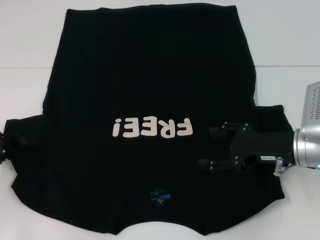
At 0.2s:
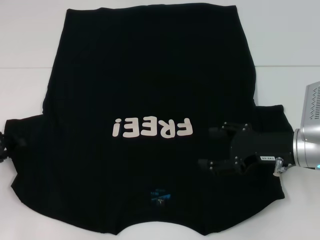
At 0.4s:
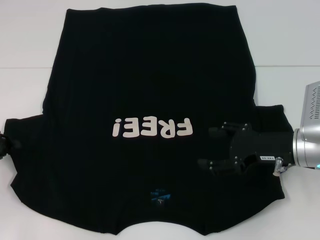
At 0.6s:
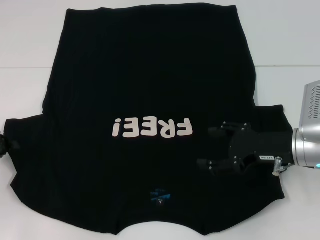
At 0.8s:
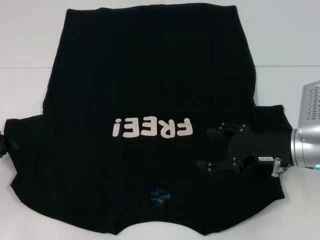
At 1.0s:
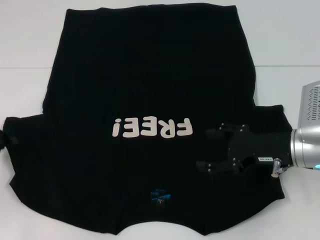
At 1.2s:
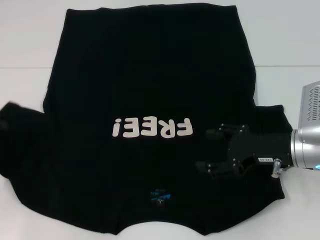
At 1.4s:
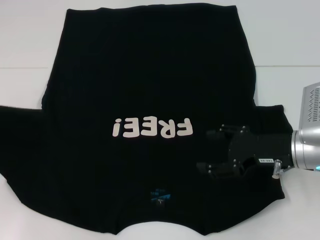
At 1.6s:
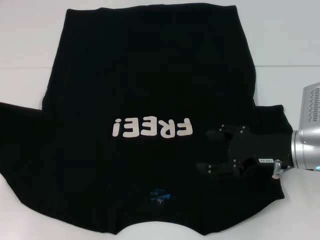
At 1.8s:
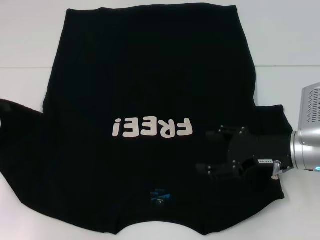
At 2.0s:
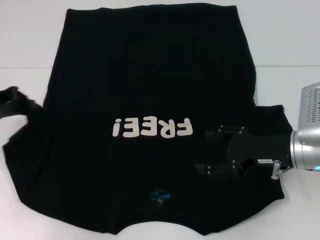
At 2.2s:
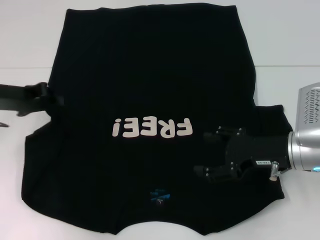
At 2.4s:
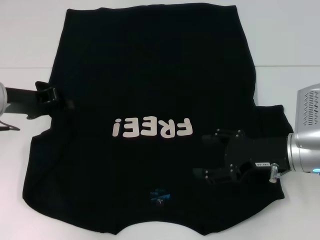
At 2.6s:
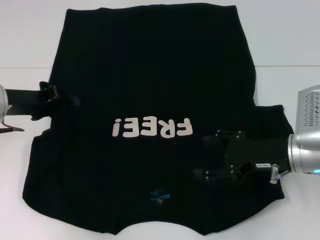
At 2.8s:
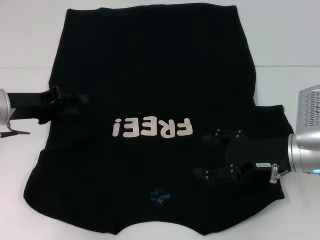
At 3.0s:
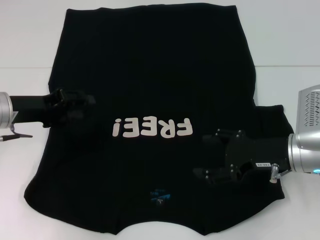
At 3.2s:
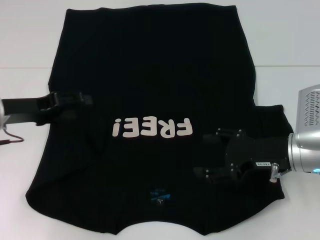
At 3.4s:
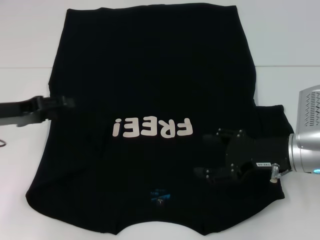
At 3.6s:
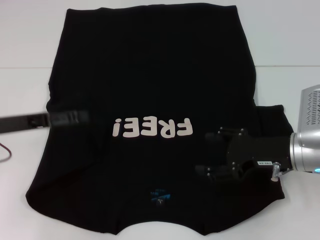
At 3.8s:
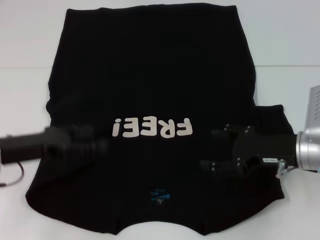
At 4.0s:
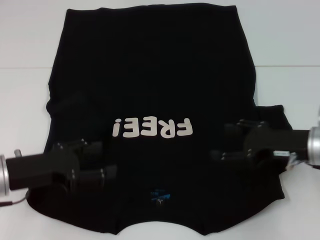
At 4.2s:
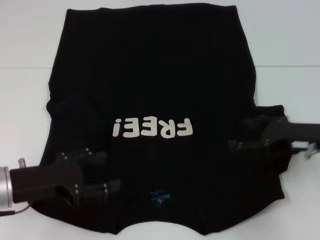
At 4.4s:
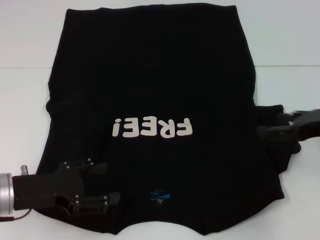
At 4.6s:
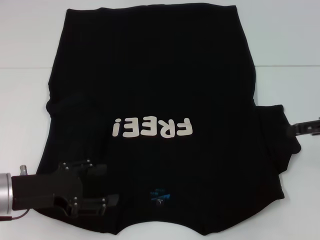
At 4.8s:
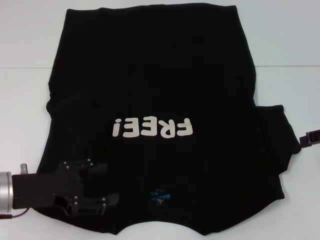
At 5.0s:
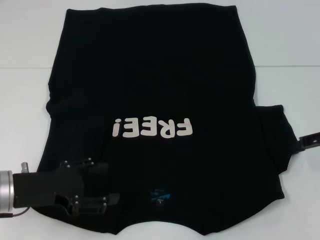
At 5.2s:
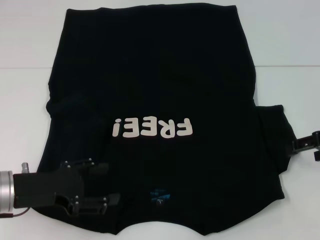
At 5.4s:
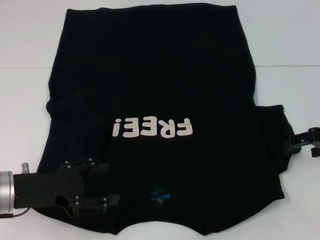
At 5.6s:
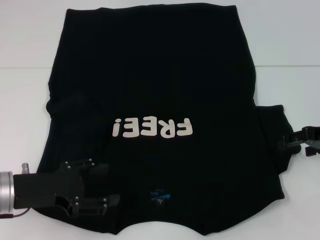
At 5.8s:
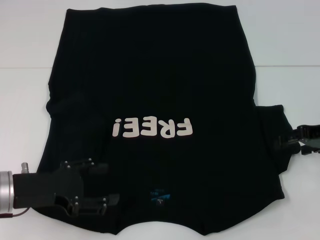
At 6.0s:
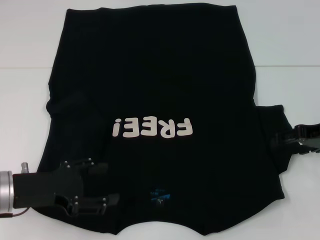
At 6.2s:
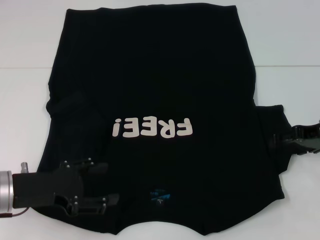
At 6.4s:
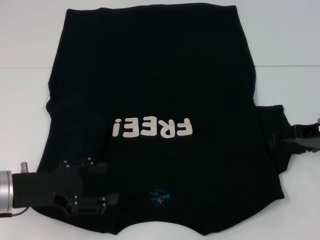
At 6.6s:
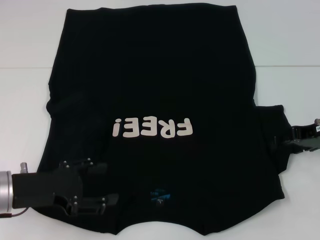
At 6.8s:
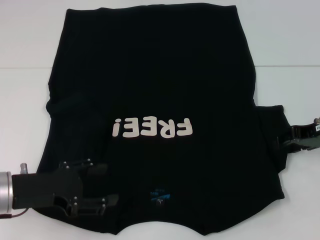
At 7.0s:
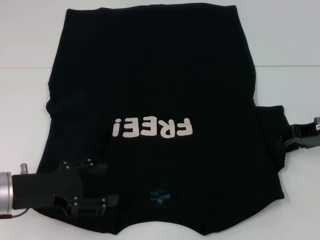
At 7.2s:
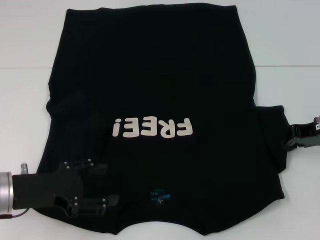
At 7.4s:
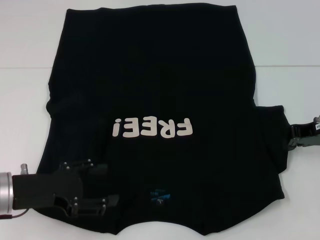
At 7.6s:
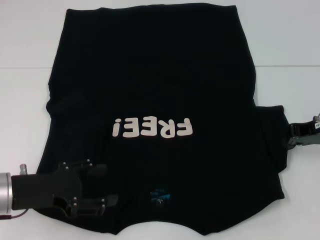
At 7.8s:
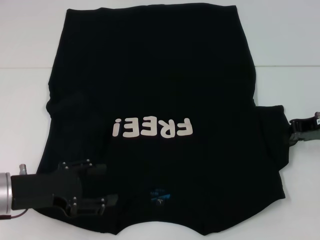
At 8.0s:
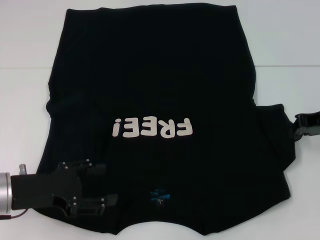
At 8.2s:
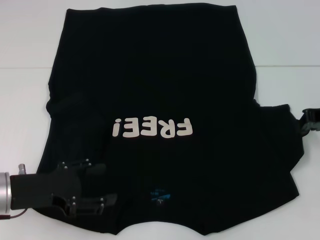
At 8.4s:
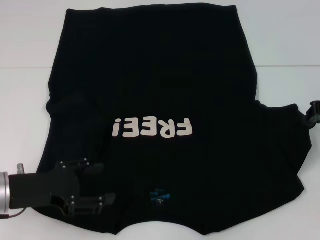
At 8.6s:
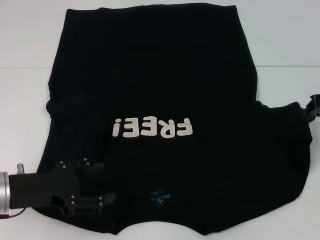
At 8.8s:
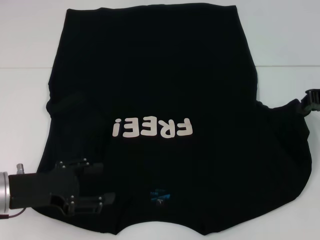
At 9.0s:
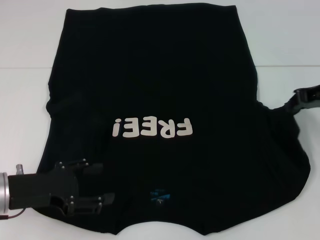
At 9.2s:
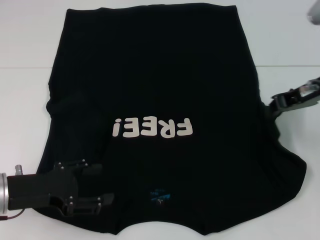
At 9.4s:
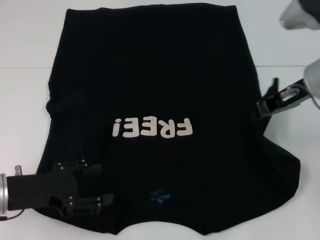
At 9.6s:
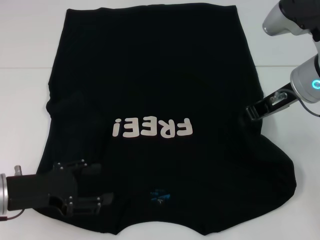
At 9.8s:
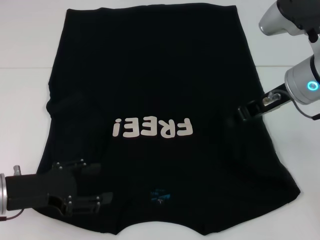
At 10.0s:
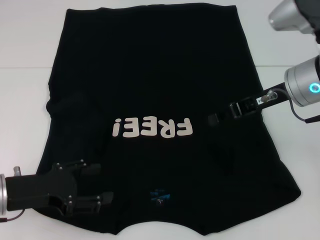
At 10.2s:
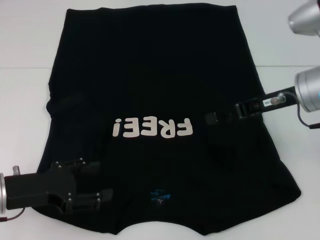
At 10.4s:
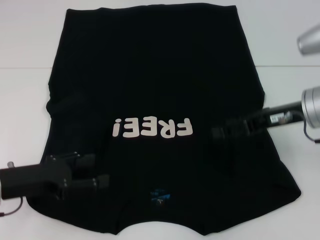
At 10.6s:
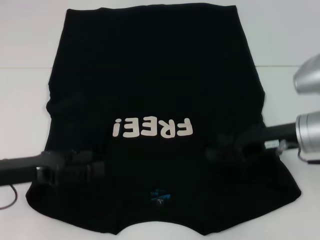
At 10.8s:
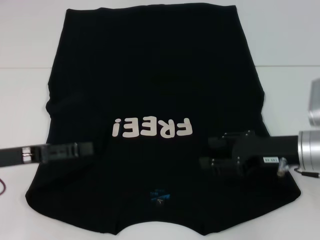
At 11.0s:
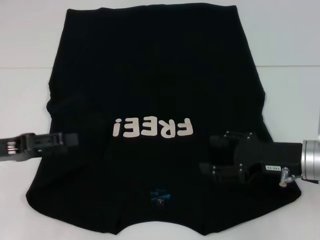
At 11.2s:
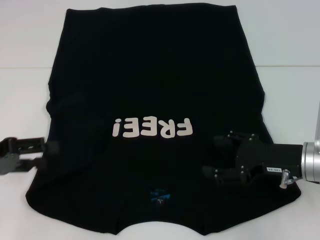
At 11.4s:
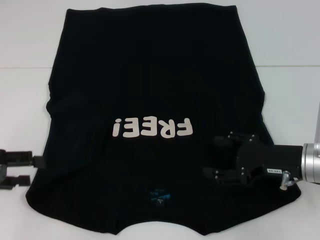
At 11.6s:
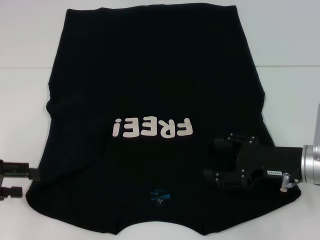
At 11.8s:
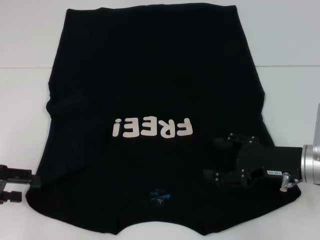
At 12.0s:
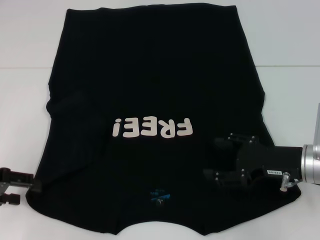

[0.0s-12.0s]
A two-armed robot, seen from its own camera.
Step, 0.0s to 2.8s: Fold the bottom left sleeve with your left hand.
Step, 3.0s to 10.0s: Fold the bottom right sleeve with your right hand.
0.0s to 1.6s: The left gripper moves upward, approximately 5 cm, and closes its fingers.
1.6s to 3.0s: The left gripper moves to the right, about 10 cm, and opens its fingers.
3.0s to 4.4s: The left gripper moves backward, about 10 cm, and opens up; the right gripper moves to the right and upward, approximately 10 cm.
4.4s to 6.0s: The right gripper shifts by some 5 cm.
6.0s to 7.6s: The right gripper closes its fingers.
7.6s to 9.0s: The right gripper heads upward, covering approximately 5 cm.
9.0s to 10.4s: The right gripper shifts roughly 5 cm to the left, and opens.
10.4s to 12.0s: The left gripper goes roughly 10 cm to the left. The right gripper moves downward and backward, approximately 10 cm, and opens its fingers.

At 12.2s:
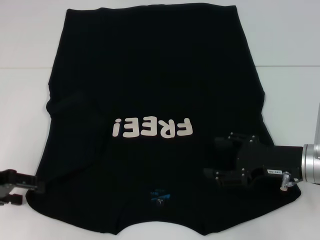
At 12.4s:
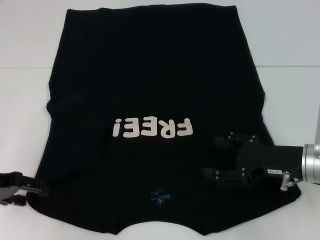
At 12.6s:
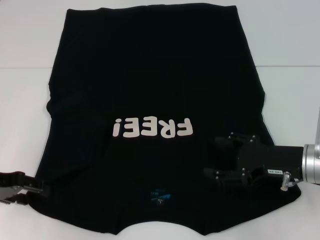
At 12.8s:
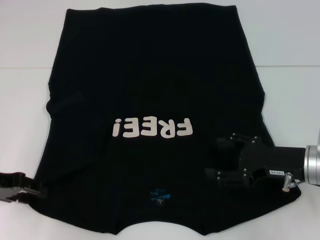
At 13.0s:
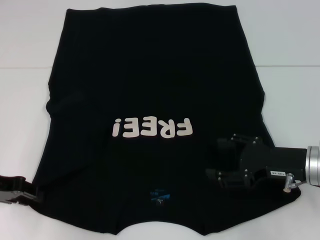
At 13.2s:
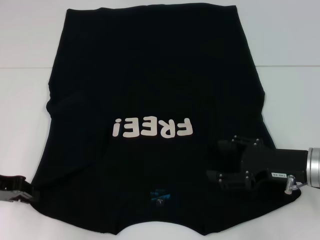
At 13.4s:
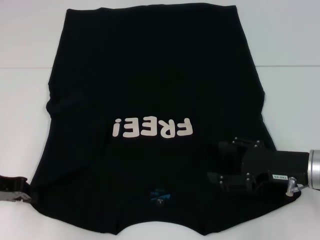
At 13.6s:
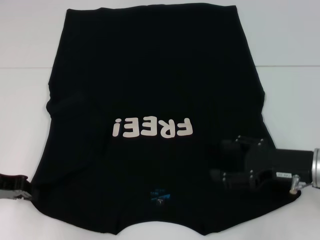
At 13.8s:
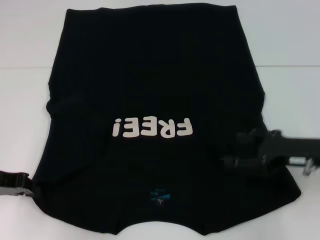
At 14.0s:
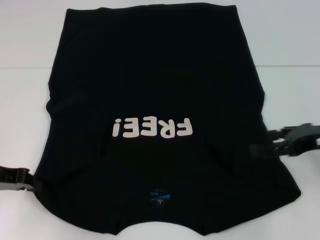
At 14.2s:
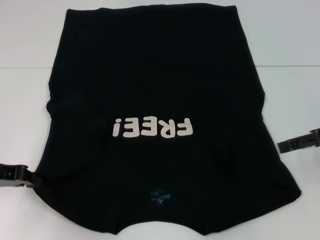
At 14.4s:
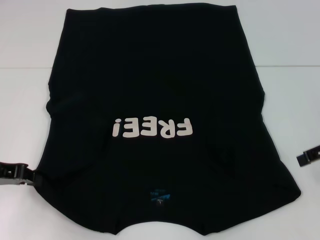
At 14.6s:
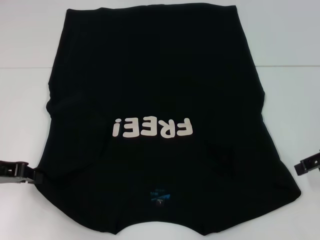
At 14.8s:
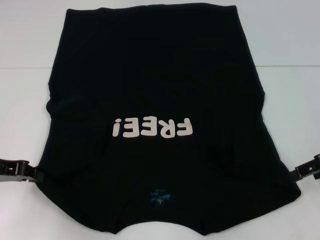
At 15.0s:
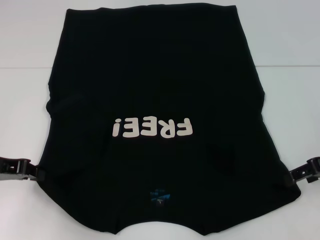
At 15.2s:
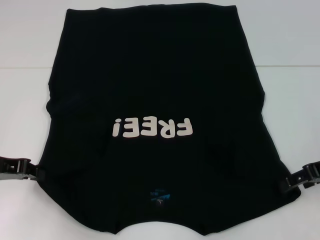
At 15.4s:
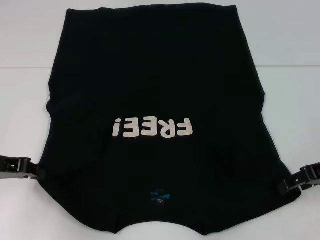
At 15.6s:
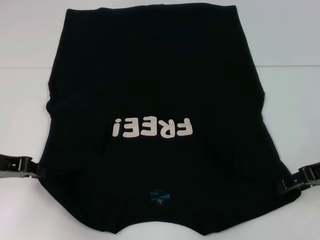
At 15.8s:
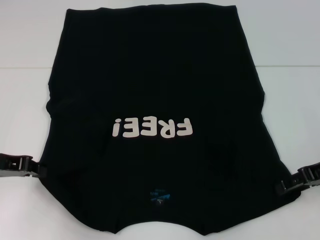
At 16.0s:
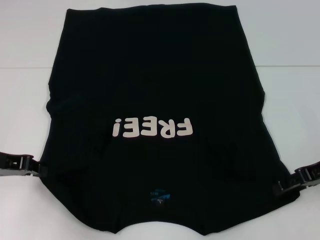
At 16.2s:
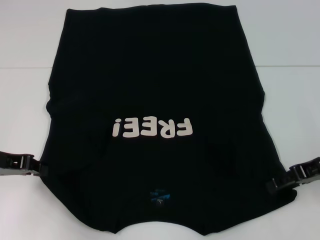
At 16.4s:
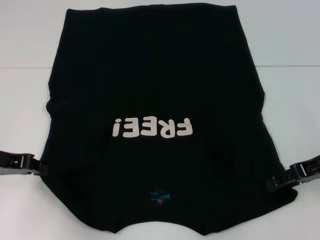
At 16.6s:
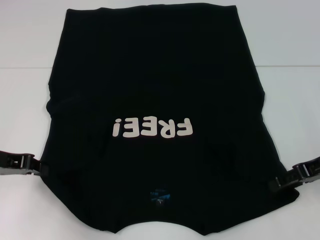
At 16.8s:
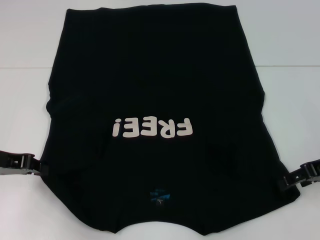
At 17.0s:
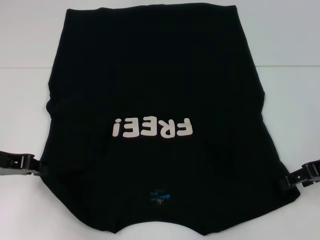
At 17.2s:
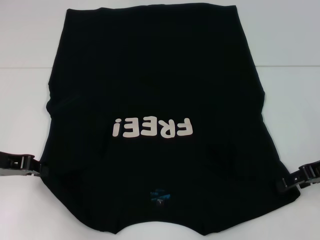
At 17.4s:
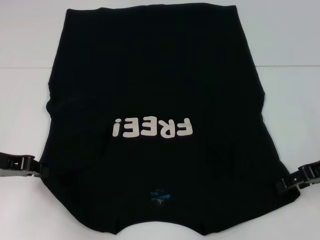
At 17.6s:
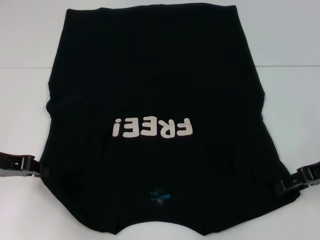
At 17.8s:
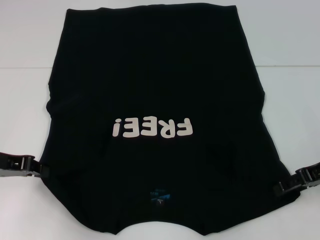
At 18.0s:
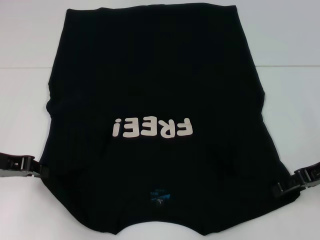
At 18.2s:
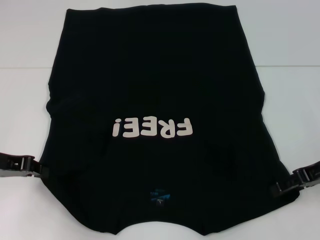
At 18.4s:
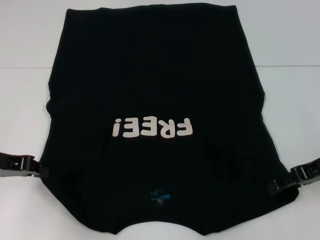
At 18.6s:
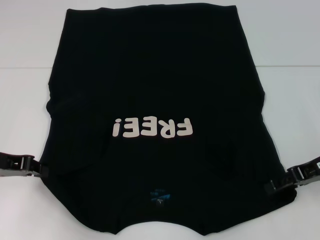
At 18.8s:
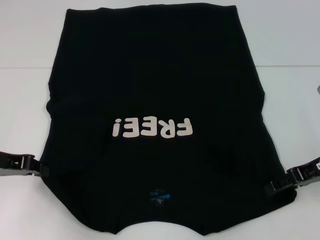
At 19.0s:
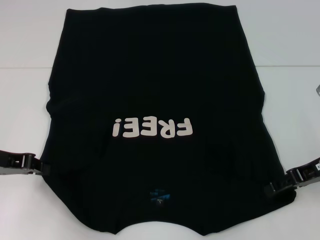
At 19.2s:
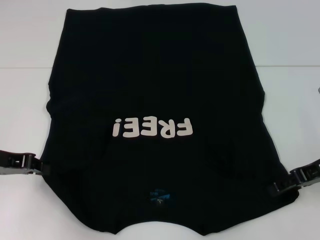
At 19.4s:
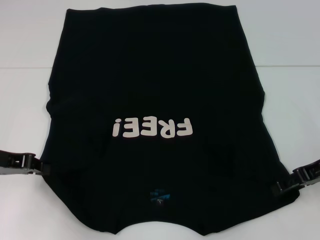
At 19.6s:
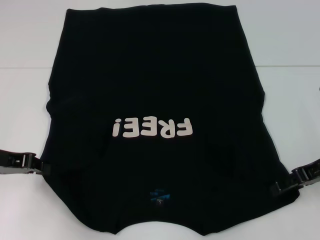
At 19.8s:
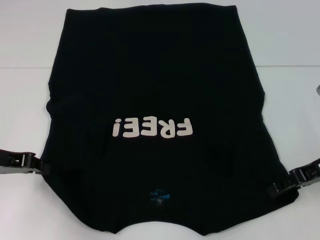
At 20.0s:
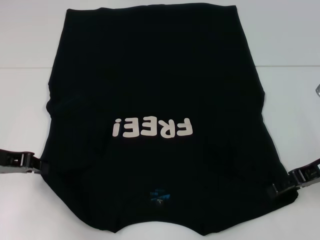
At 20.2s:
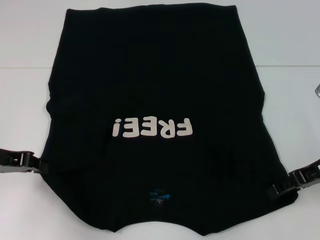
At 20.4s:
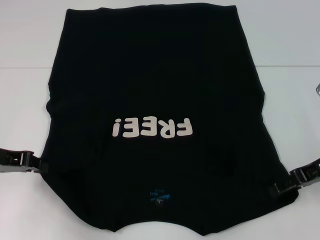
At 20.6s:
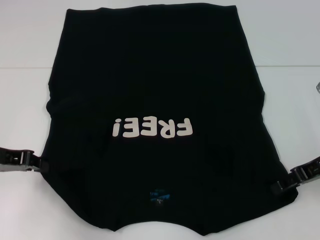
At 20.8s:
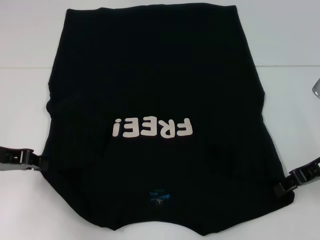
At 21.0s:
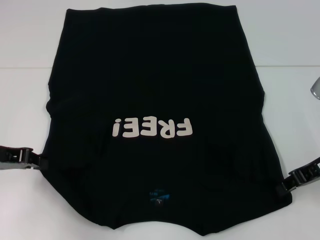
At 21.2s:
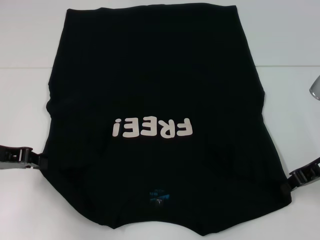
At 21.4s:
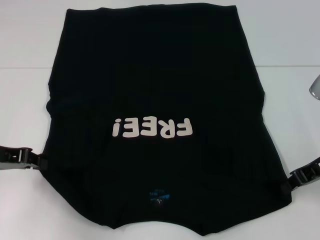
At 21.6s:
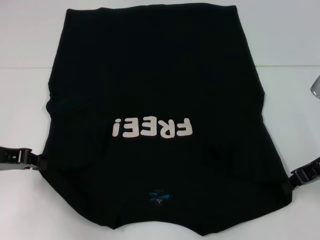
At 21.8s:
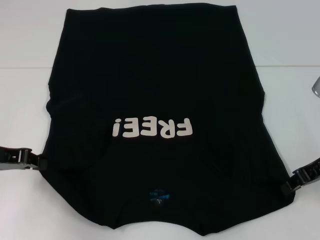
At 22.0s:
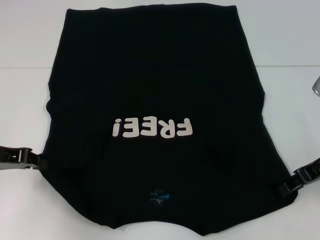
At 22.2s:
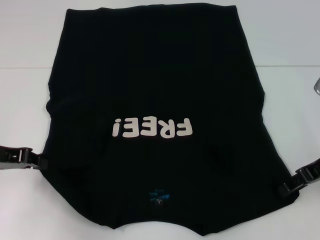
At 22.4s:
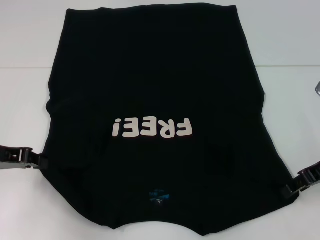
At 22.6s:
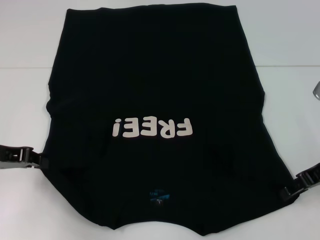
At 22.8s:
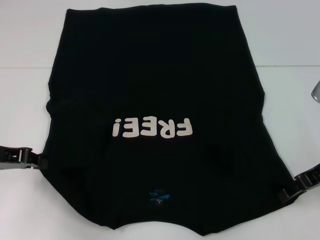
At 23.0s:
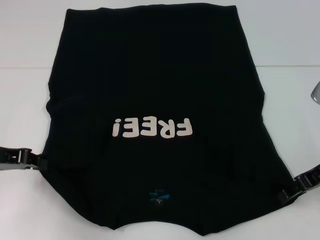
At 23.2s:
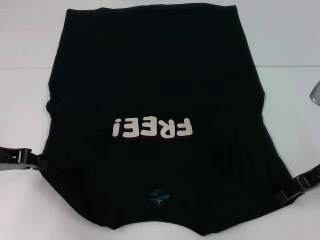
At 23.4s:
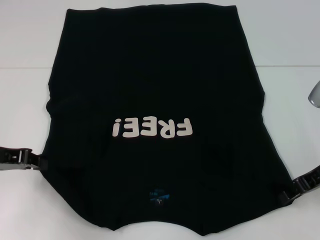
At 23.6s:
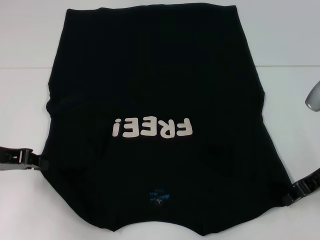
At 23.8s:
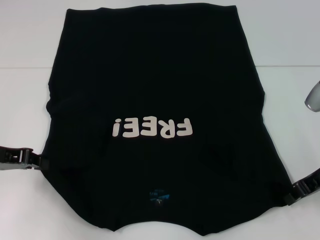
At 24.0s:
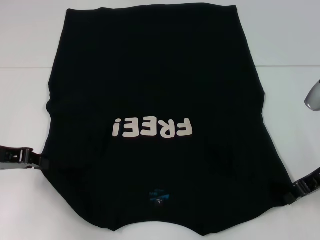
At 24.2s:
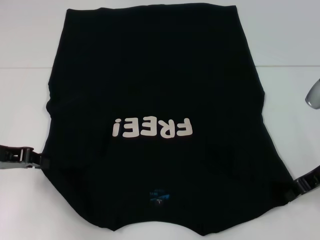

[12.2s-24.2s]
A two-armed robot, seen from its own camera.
12.2s to 13.8s: The left gripper closes up.
15.2s to 16.6s: The grippers move only a little.
16.6s to 19.8s: The two grippers keep their place.
19.8s to 21.2s: The right gripper closes.
21.2s to 22.6s: Neither gripper changes place.
22.6s to 24.2s: The right gripper closes its fingers.
